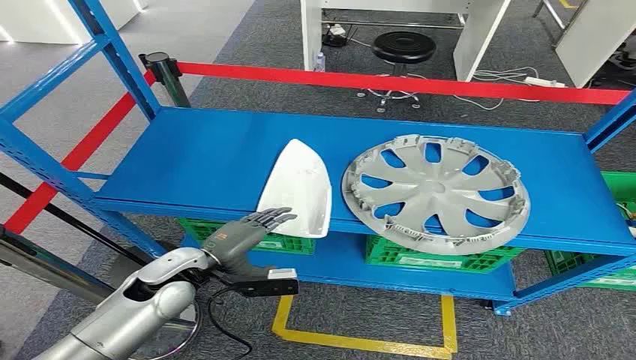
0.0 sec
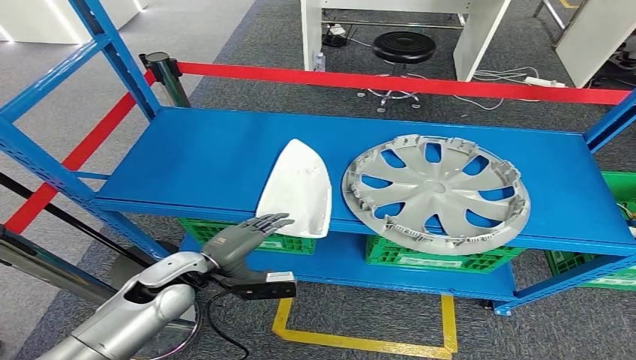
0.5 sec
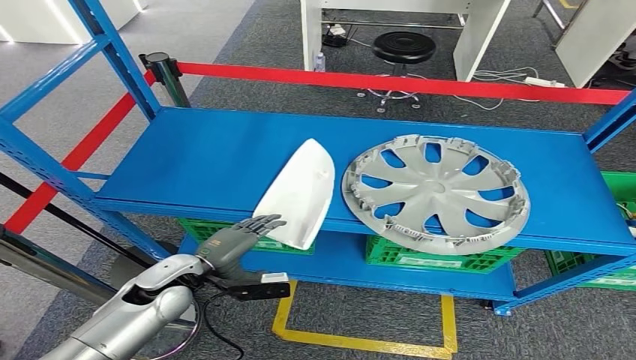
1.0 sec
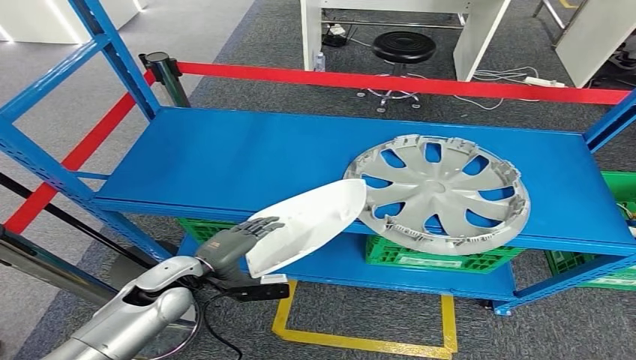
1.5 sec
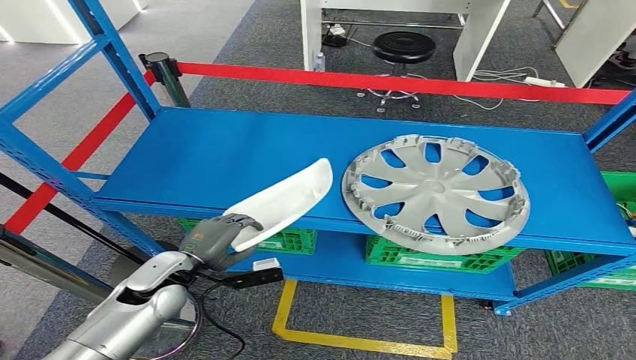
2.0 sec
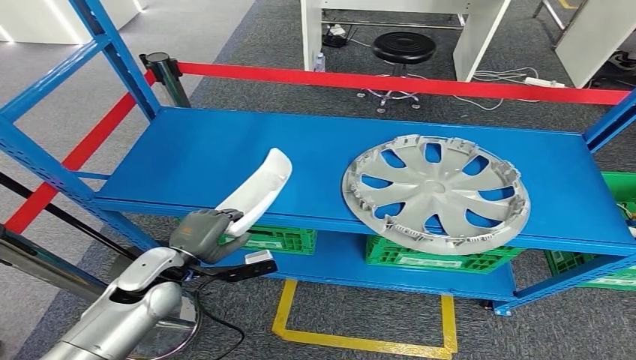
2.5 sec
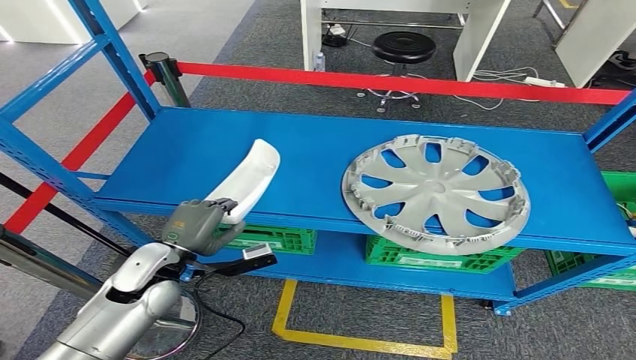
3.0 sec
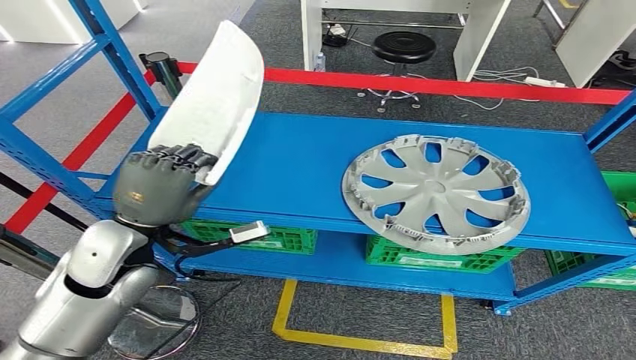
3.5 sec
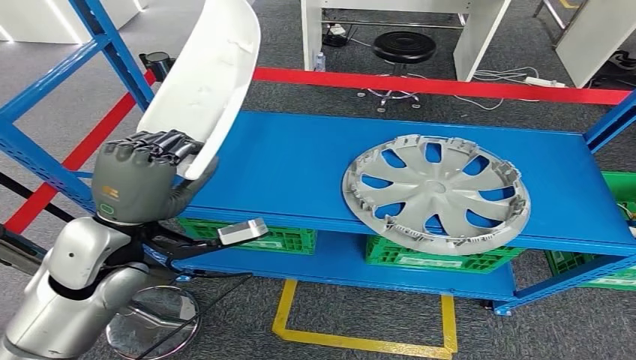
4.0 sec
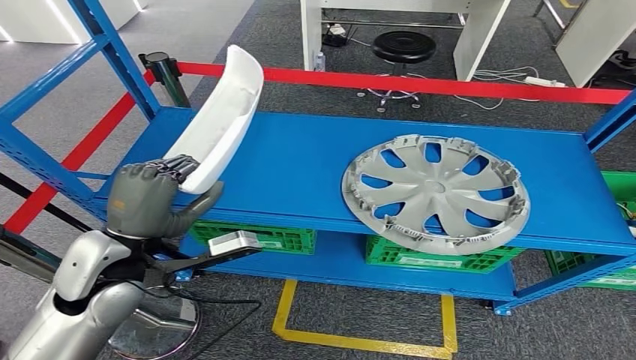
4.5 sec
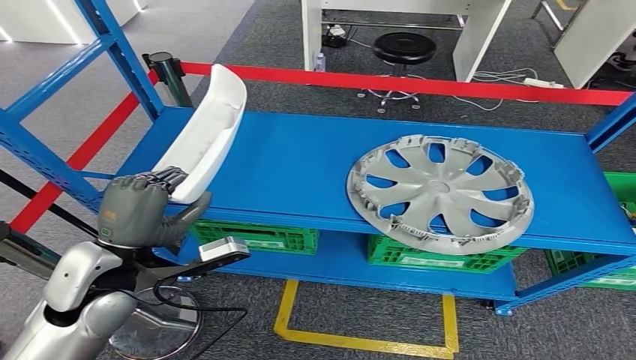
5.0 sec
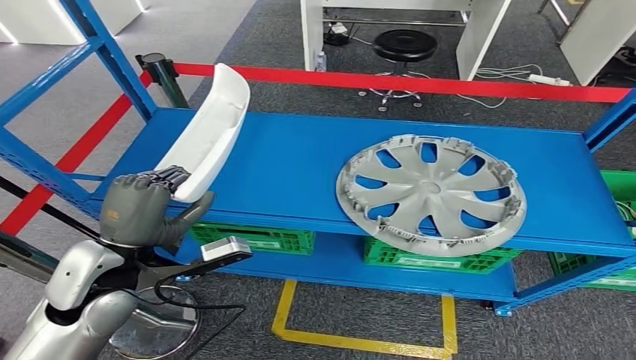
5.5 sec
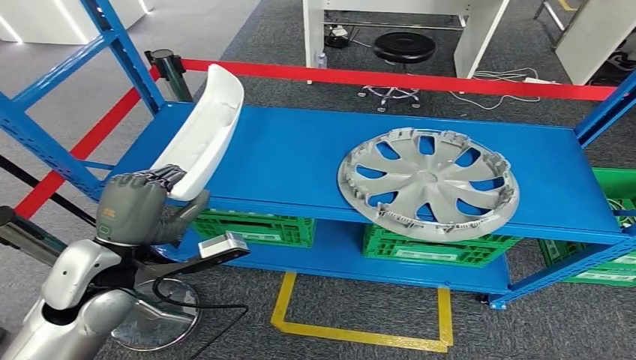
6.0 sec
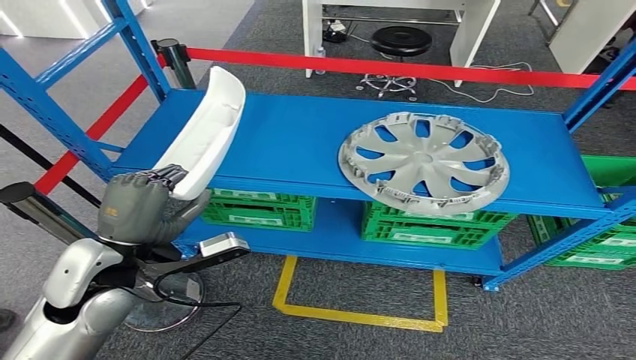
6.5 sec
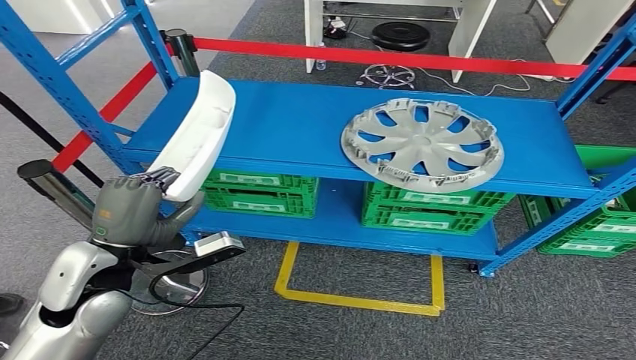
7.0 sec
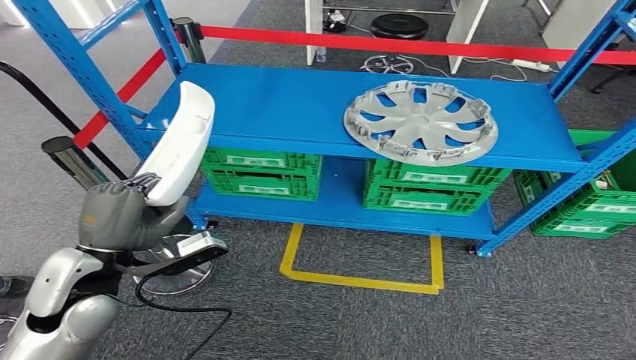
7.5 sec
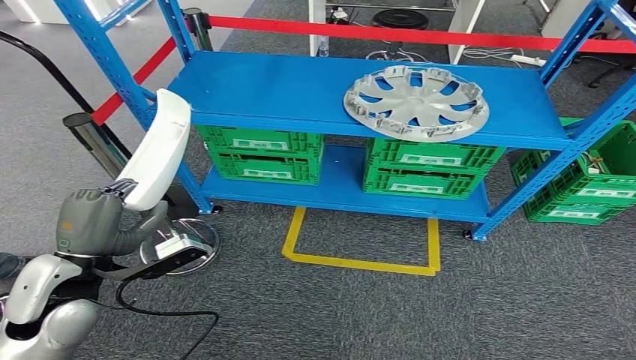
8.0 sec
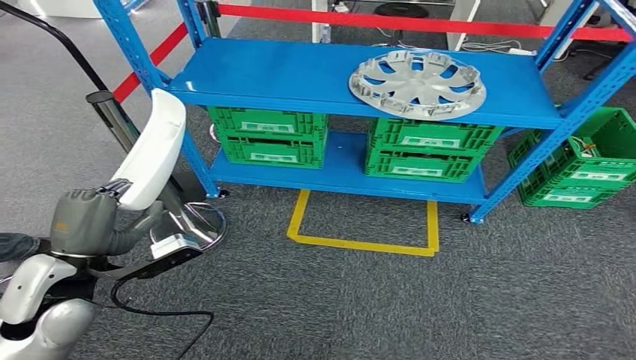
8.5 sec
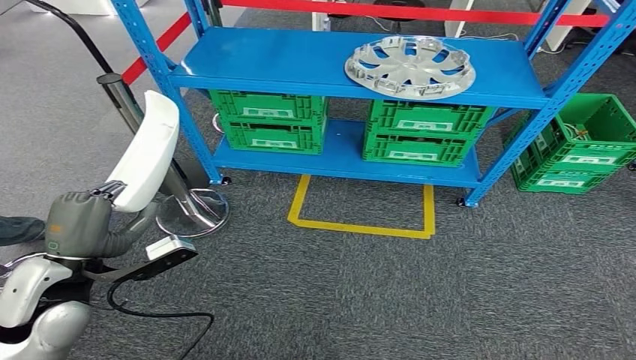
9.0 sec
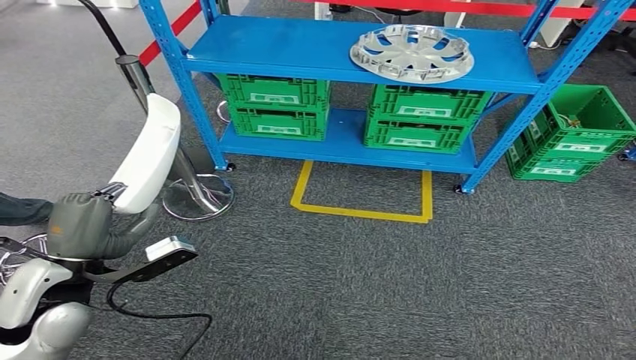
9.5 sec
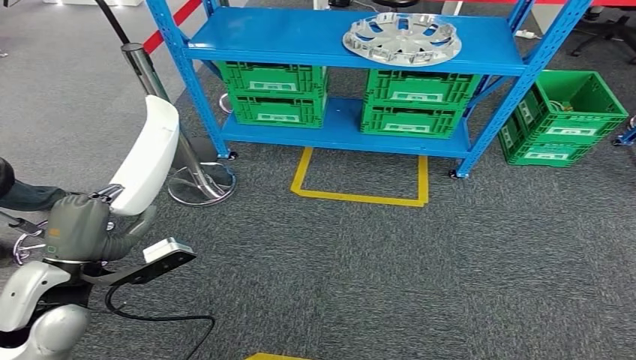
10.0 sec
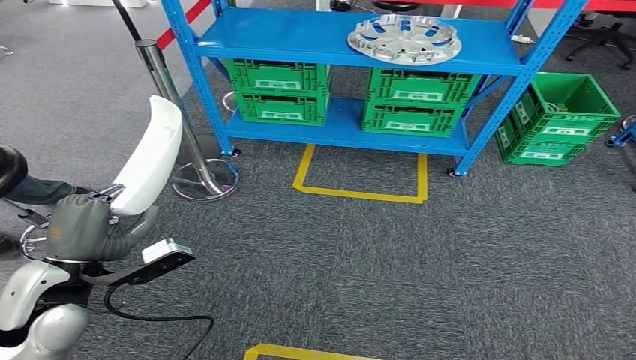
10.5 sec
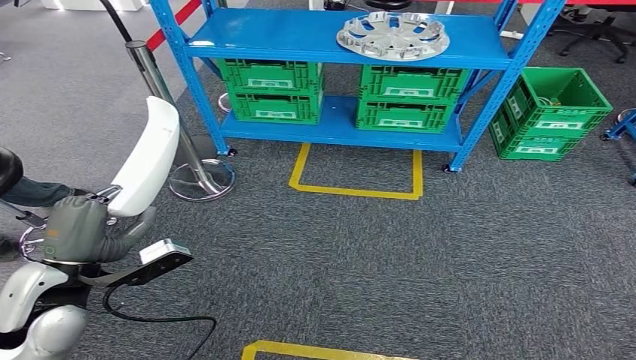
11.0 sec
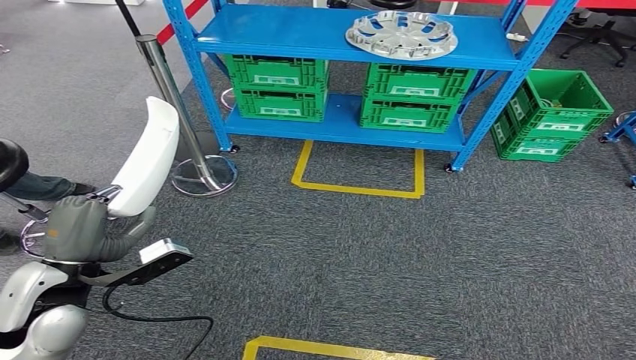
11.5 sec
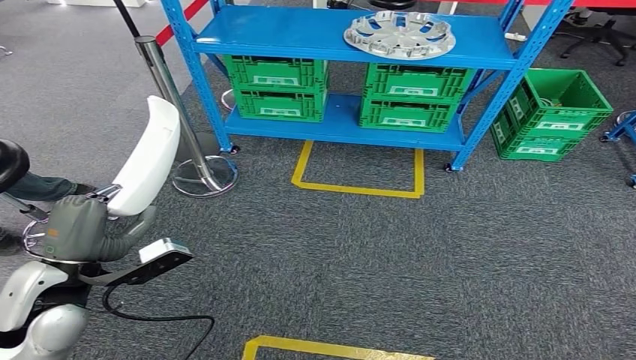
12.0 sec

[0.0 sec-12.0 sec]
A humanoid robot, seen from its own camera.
Step, 0.0 sec to 4.0 sec: Pick up the small parts from the shelf.
2.0 sec to 4.0 sec: The left hand is displaced upward by some 20 cm.
10.0 sec to 12.0 sec: The hands stay close to where they were, moving slightly.

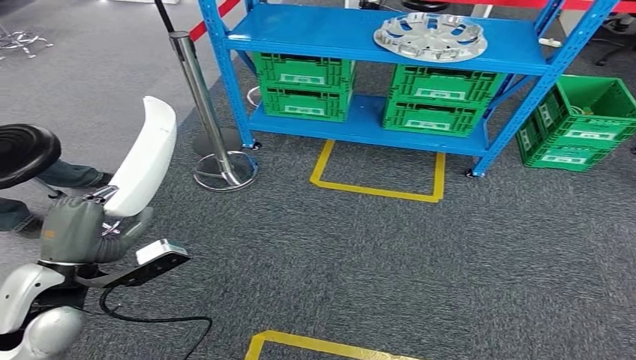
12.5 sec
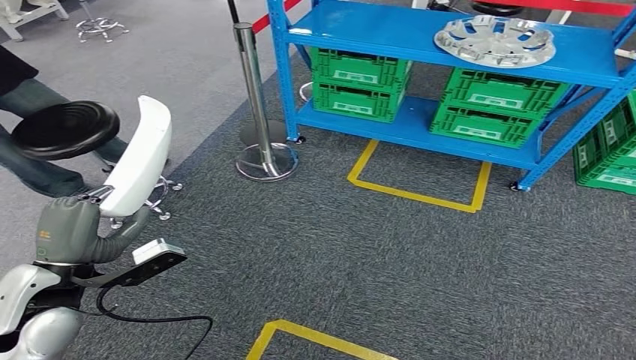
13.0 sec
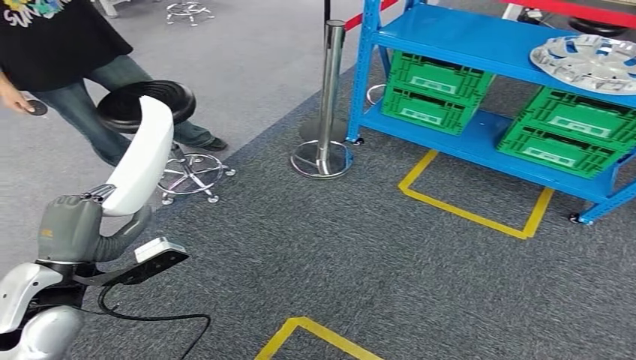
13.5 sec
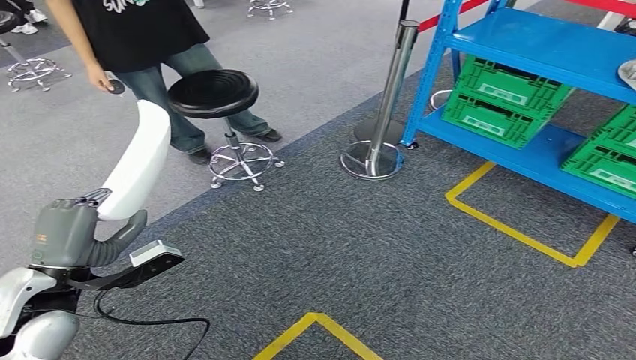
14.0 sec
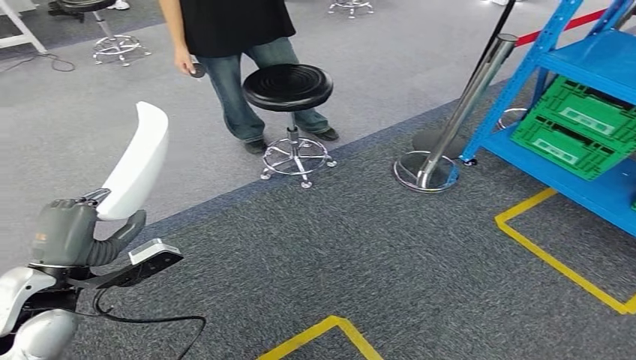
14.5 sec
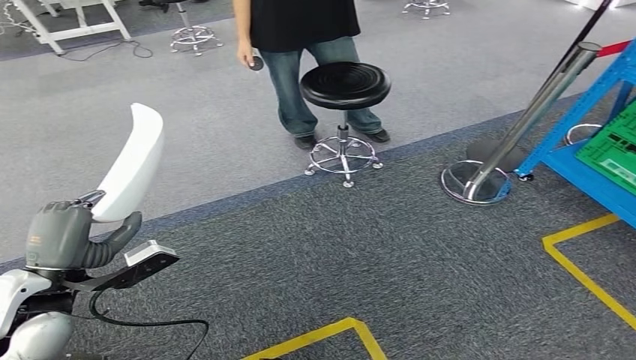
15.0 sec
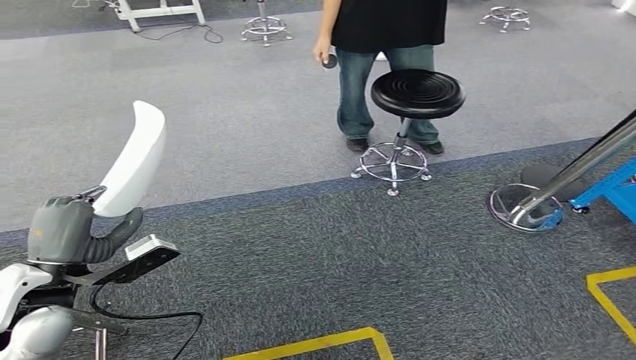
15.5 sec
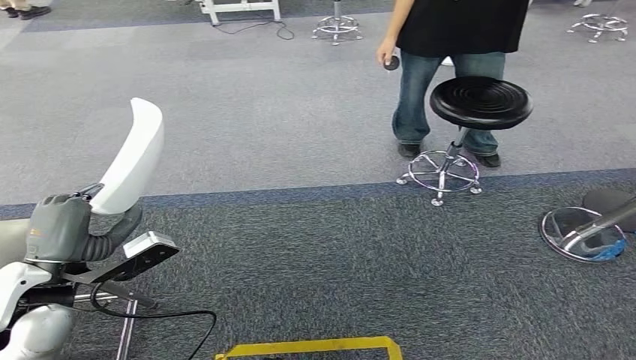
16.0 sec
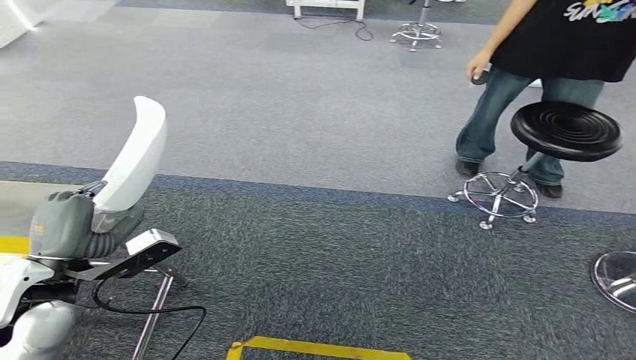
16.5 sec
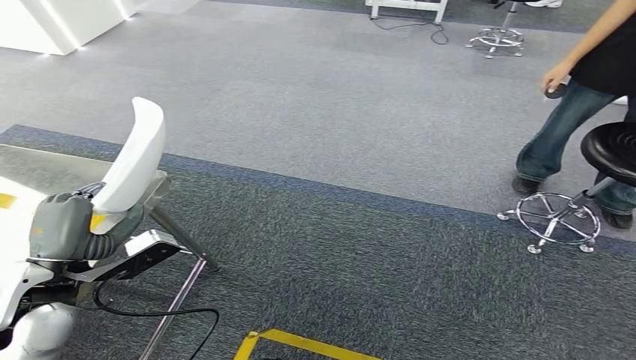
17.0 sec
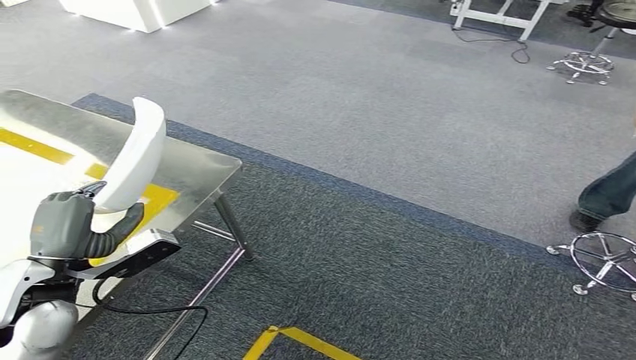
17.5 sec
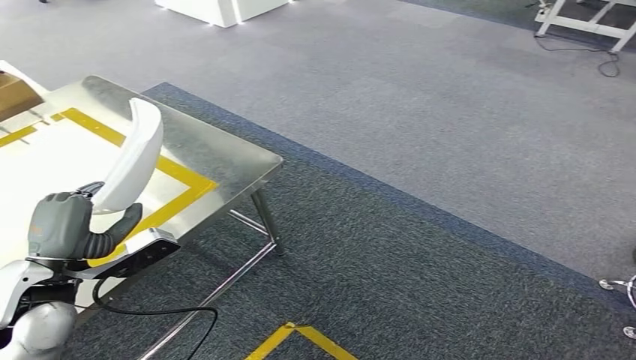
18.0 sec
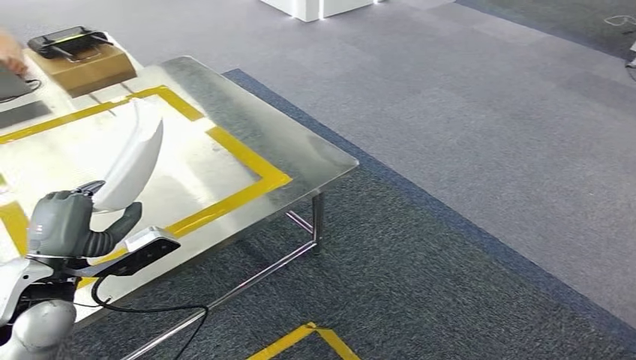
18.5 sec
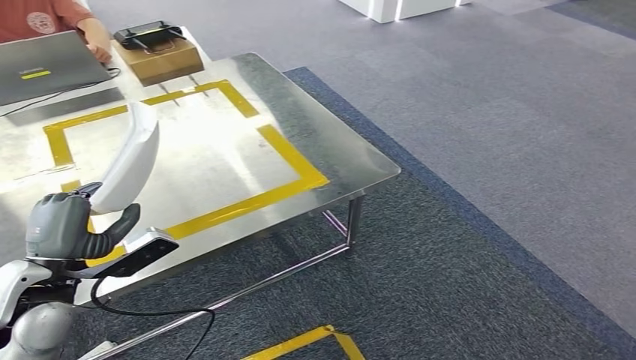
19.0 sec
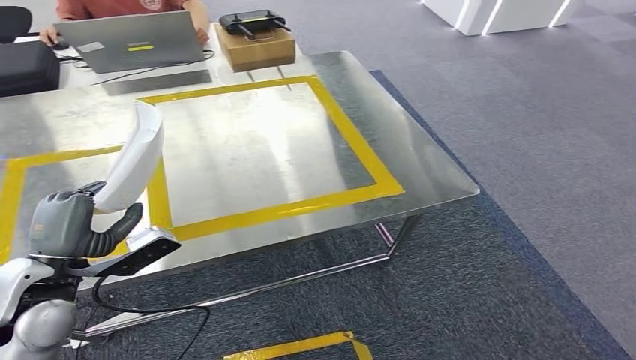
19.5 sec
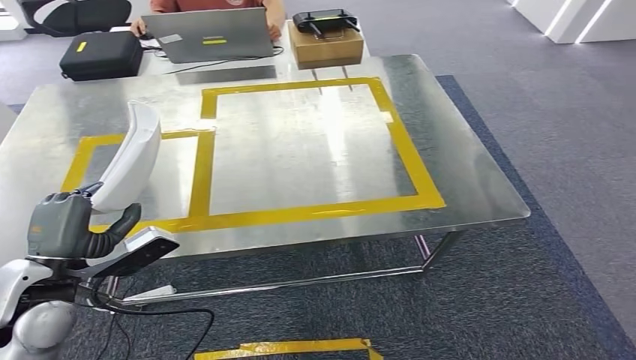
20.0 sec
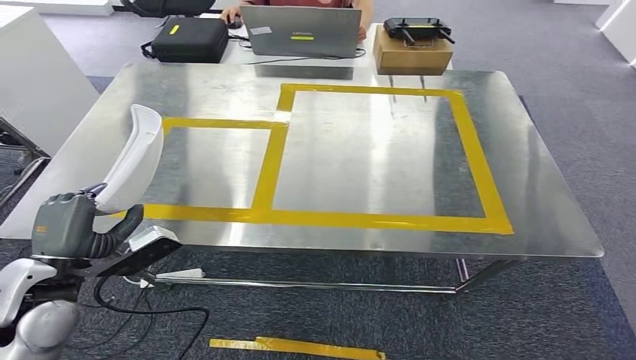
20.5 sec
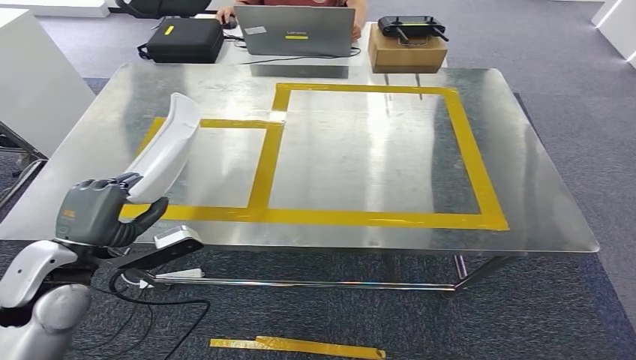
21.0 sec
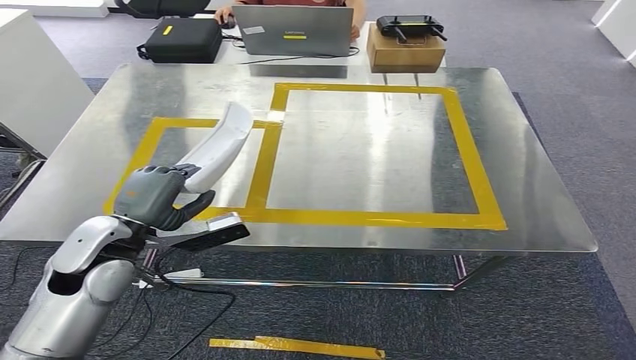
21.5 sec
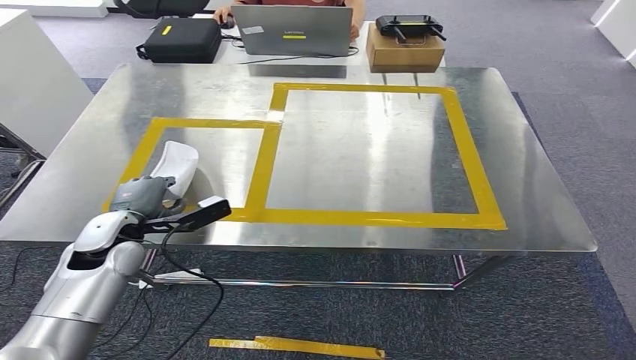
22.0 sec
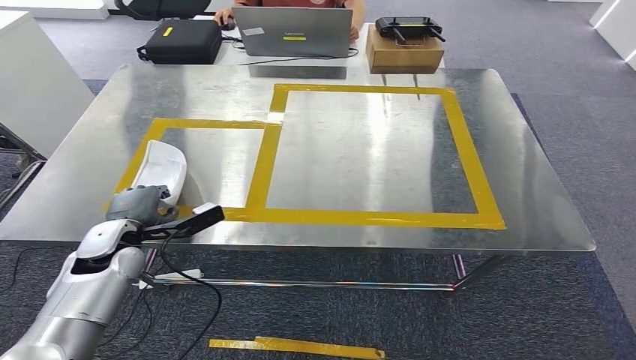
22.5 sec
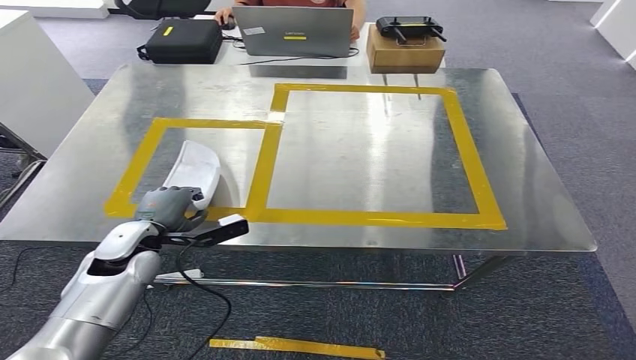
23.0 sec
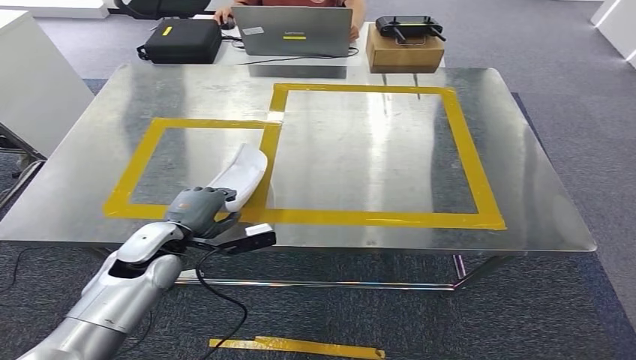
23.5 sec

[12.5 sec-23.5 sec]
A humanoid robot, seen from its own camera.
Step, 12.5 sec to 20.5 sec: Move the small parts to the workbench.
21.5 sec to 23.5 sec: The left hand goes approximately 10 cm downward.
